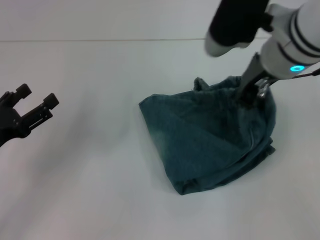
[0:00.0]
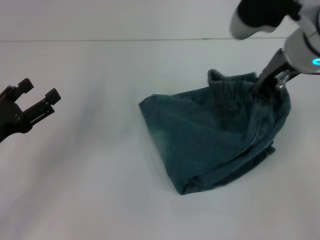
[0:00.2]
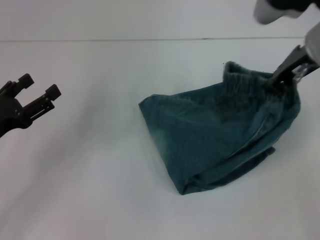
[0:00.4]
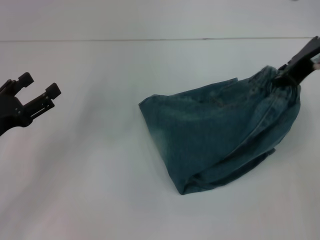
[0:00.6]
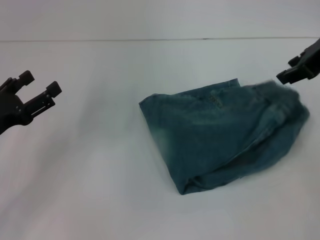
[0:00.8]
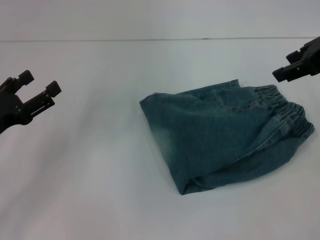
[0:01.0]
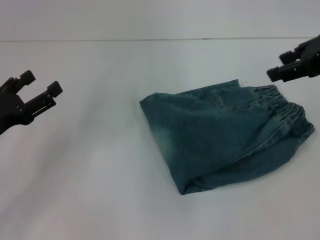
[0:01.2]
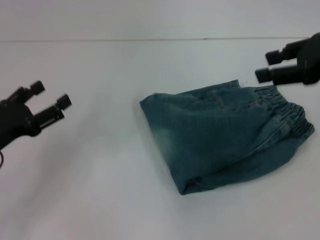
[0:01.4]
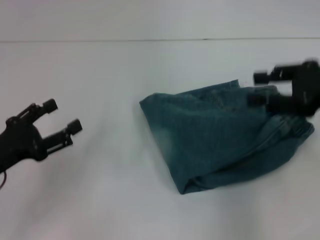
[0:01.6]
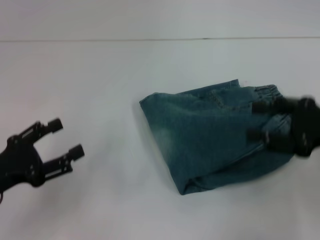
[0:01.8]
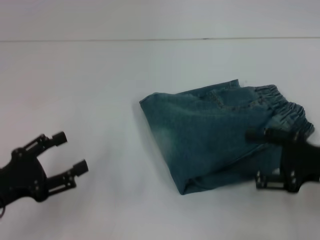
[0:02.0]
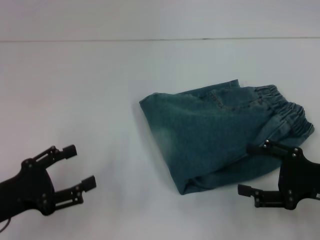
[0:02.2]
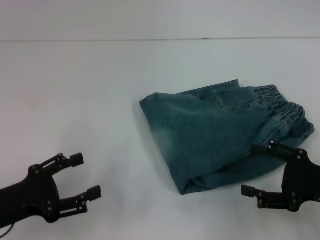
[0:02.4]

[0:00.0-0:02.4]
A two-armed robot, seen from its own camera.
0:00.0 to 0:01.2: The right gripper travels to the right by about 15 cm, and opens.
0:01.2 to 0:02.4: The right gripper travels downward and backward by some 25 cm, and opens its fingers. Meanwhile the left gripper moves backward, approximately 5 cm.

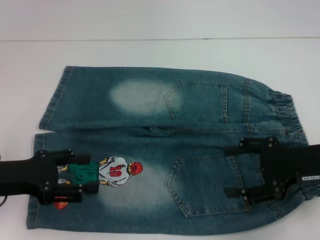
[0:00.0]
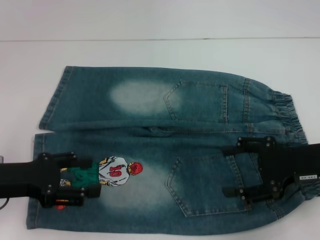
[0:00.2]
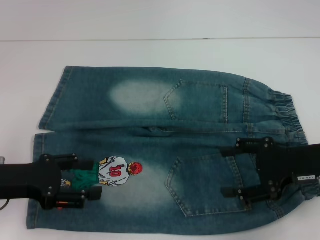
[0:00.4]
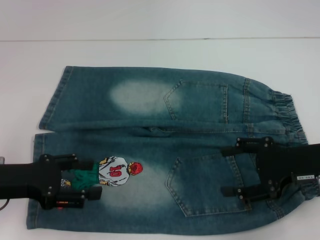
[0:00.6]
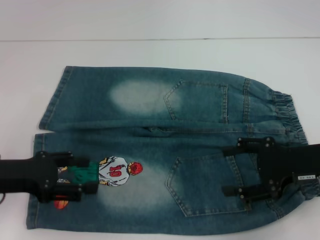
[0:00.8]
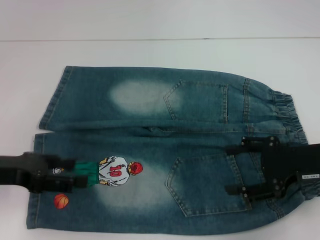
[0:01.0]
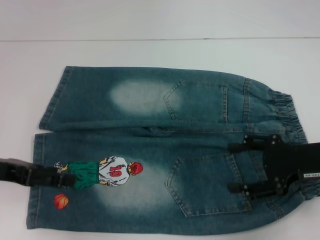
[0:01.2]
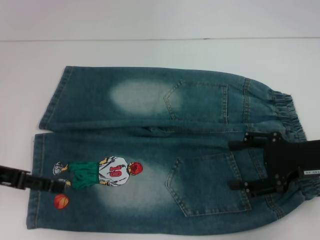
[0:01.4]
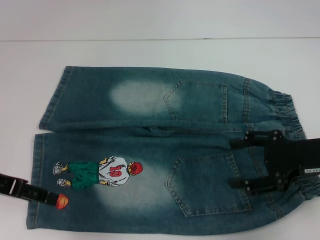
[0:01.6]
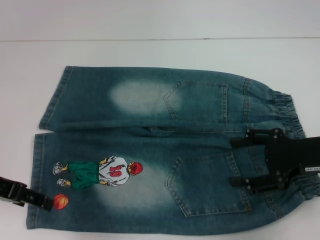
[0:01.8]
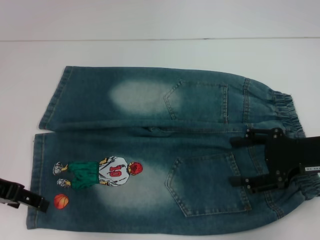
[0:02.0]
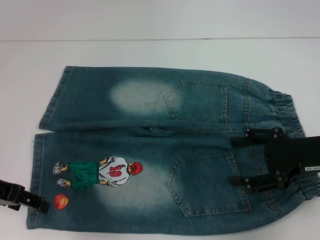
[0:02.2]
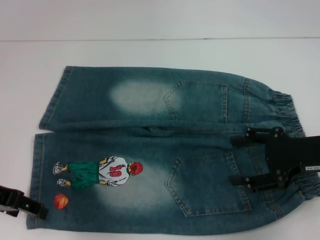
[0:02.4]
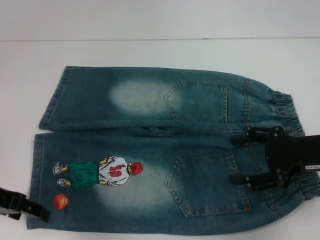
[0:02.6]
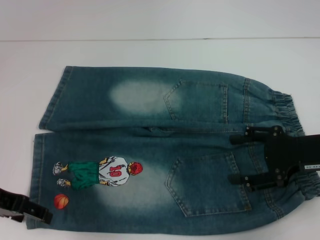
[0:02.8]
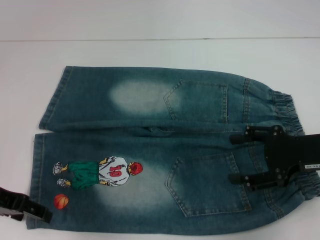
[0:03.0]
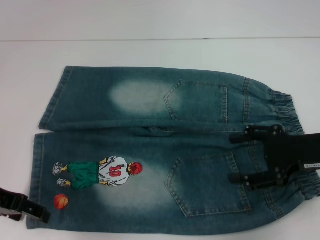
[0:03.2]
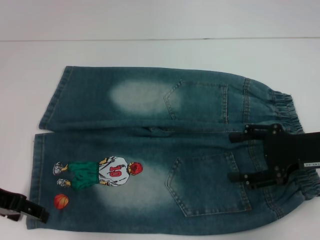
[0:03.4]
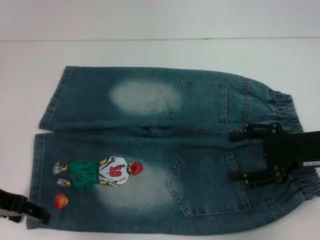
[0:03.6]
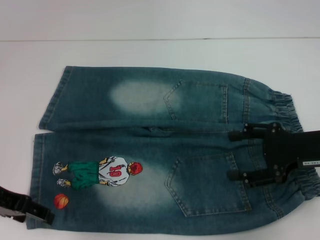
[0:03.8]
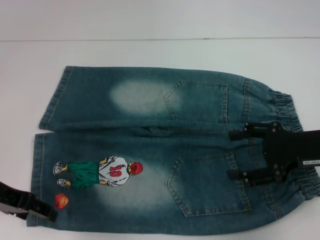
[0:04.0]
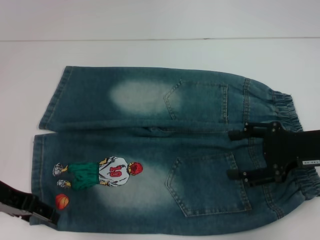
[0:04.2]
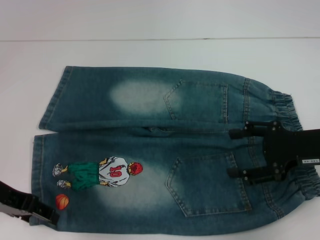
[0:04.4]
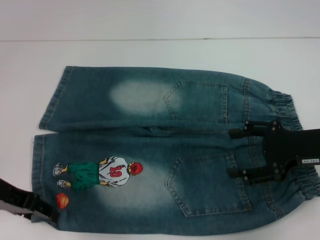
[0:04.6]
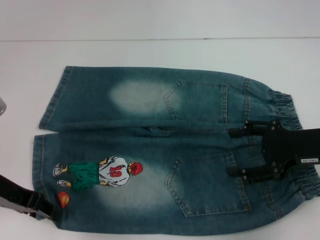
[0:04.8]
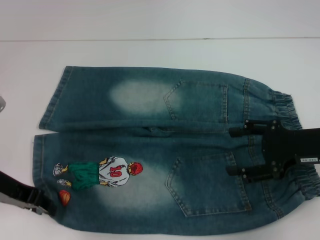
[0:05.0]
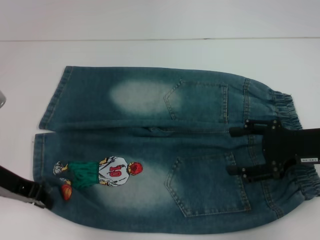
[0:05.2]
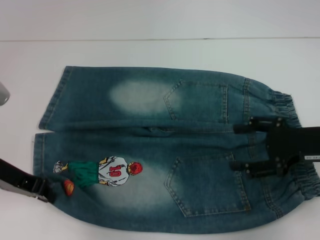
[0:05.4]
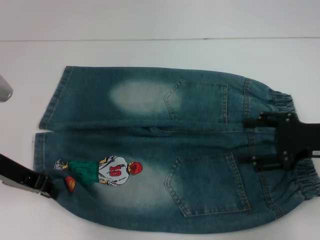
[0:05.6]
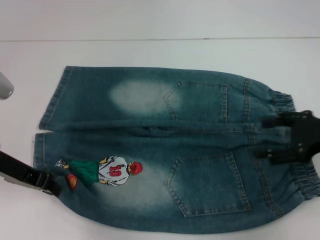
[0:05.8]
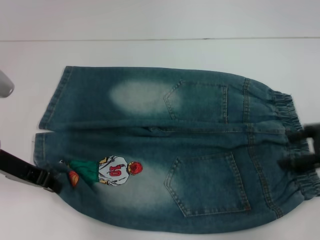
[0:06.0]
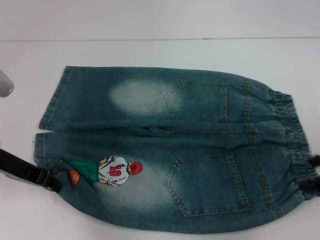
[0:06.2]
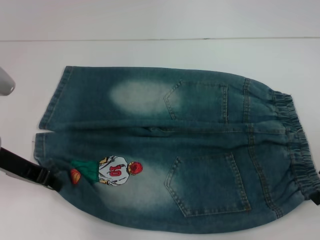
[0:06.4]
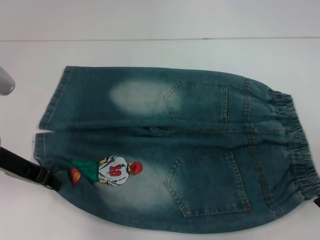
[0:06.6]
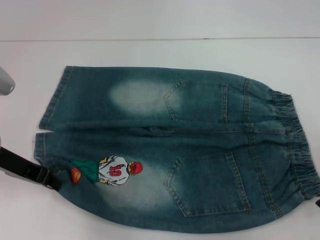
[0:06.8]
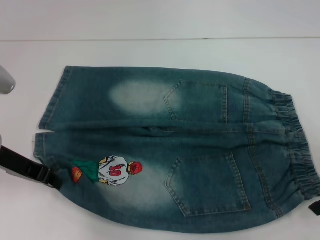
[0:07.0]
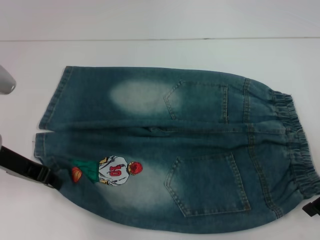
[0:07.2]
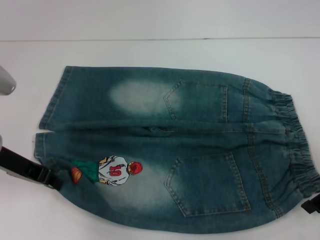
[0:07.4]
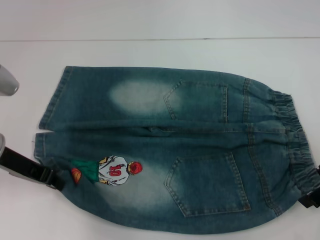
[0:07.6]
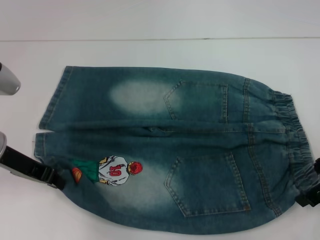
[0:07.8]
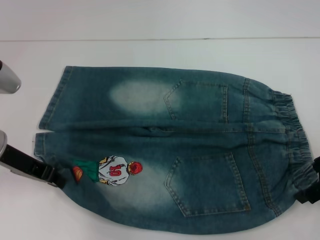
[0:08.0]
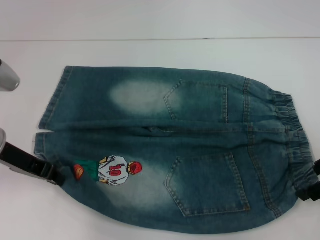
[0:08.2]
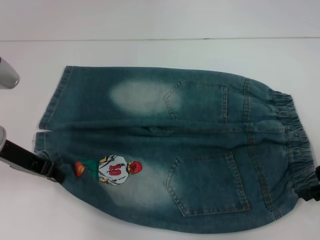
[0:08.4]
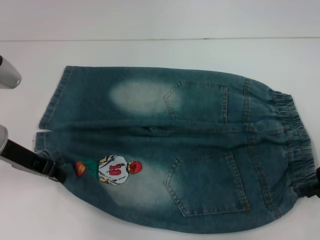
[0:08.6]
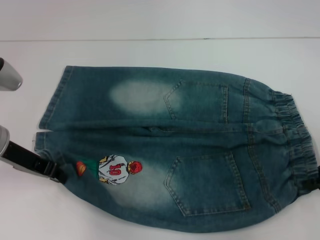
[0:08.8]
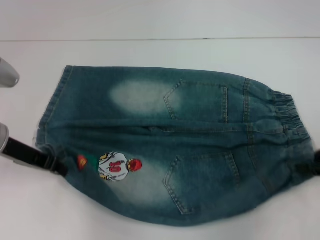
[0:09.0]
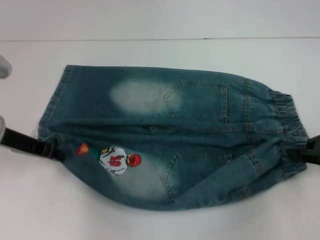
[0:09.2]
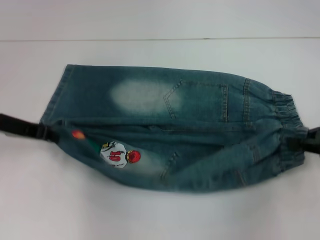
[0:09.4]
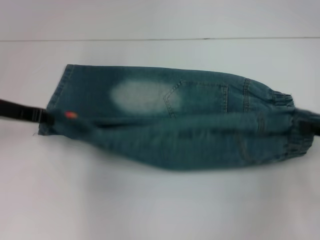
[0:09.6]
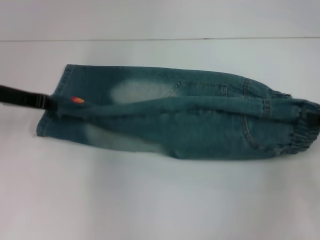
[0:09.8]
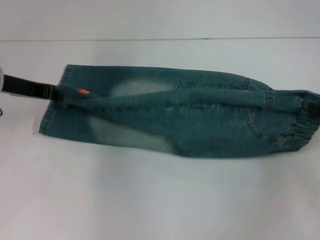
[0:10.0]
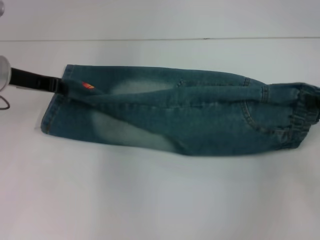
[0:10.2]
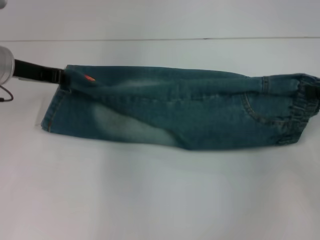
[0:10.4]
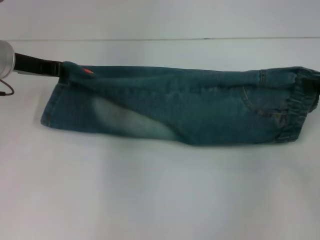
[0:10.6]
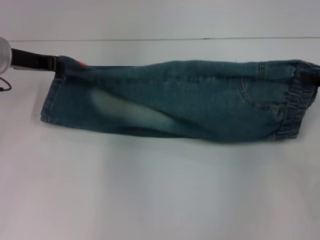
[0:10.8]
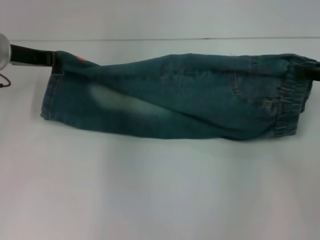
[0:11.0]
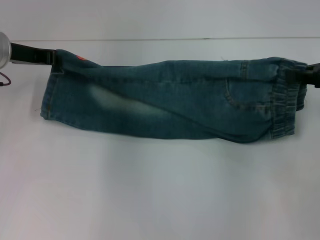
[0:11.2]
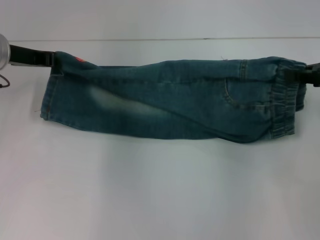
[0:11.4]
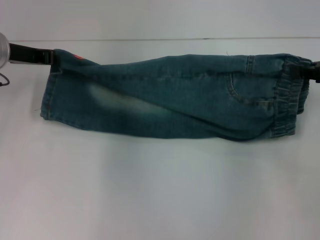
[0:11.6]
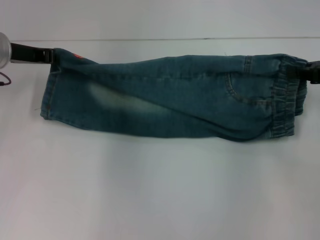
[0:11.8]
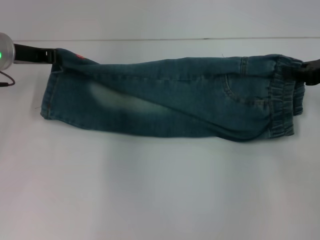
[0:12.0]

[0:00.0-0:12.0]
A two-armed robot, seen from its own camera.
Step, 0:00.0 to 0:05.0: Grab the lower left pant leg with your left hand.
Step, 0:05.2 to 0:08.6: Hold the lower right waistband with your right hand.
0:00.0 to 0:01.6: The left gripper moves upward, some 5 cm.
0:01.6 to 0:04.4: The grippers make only small movements.
0:04.4 to 0:06.0: The left gripper closes. The right gripper shifts by roughly 5 cm.
0:07.6 to 0:09.0: The right gripper closes its fingers.
0:09.0 to 0:10.4: The left gripper heads forward, covering some 5 cm. Meanwhile the right gripper changes place by roughly 5 cm.
0:10.4 to 0:12.0: There are only small adjustments of the grippers.

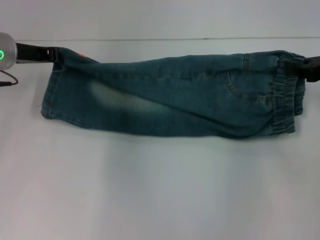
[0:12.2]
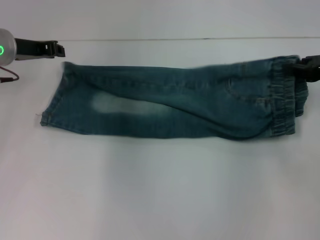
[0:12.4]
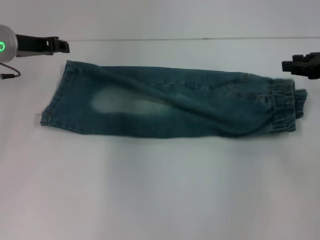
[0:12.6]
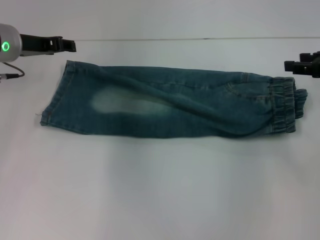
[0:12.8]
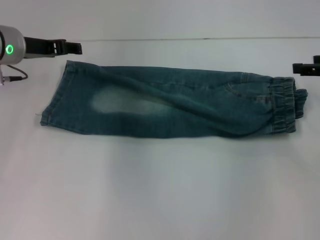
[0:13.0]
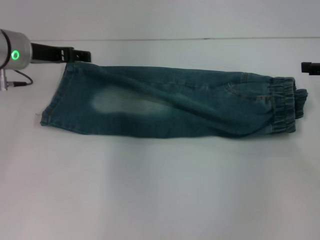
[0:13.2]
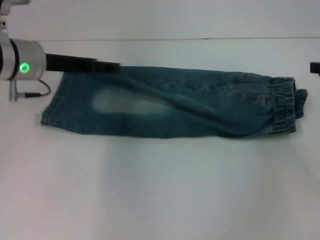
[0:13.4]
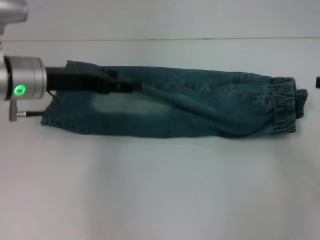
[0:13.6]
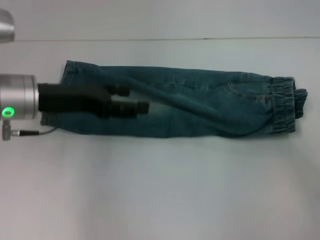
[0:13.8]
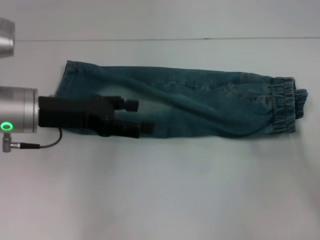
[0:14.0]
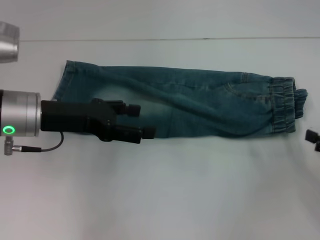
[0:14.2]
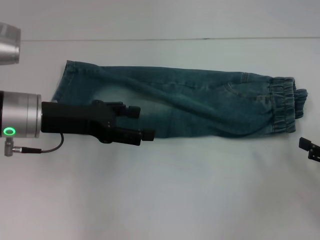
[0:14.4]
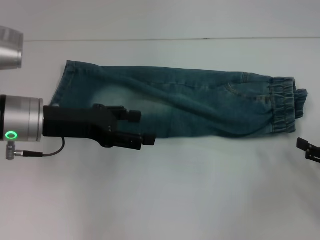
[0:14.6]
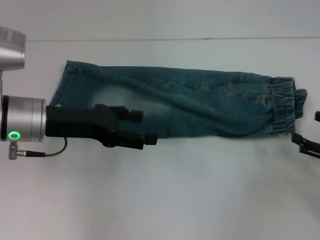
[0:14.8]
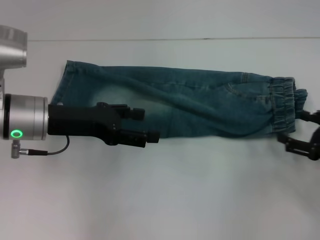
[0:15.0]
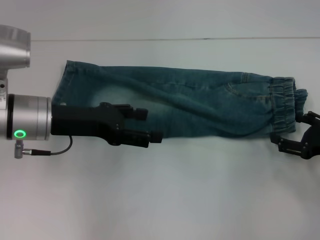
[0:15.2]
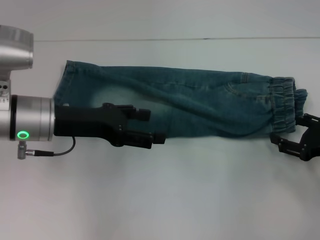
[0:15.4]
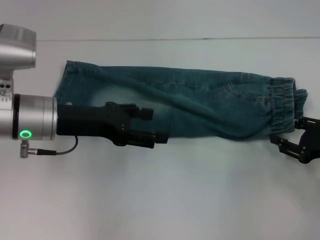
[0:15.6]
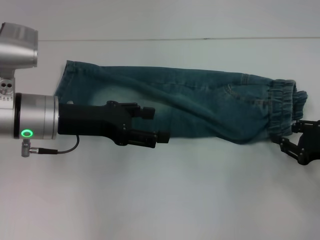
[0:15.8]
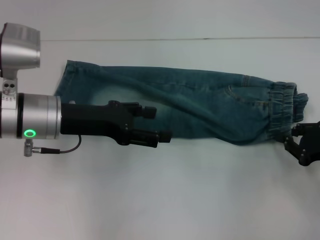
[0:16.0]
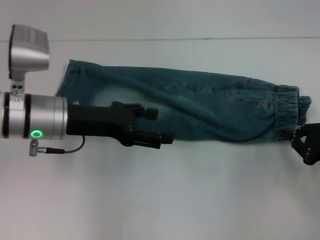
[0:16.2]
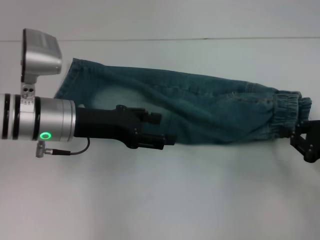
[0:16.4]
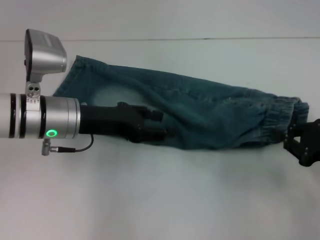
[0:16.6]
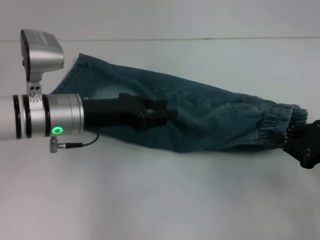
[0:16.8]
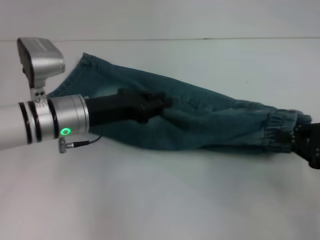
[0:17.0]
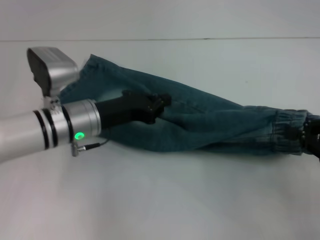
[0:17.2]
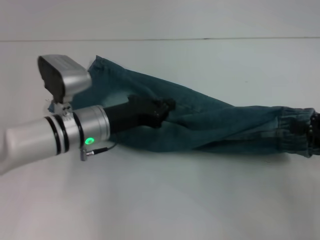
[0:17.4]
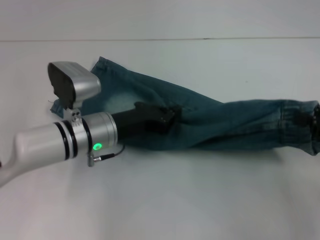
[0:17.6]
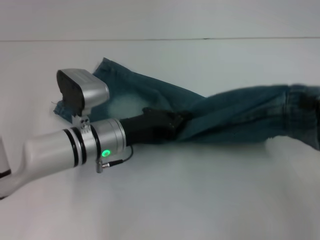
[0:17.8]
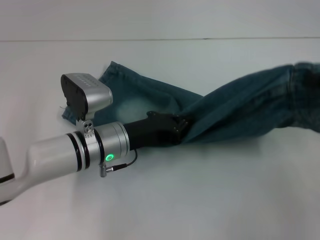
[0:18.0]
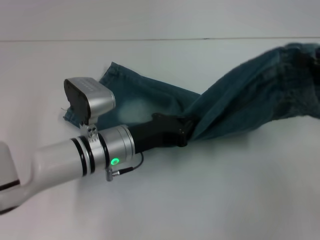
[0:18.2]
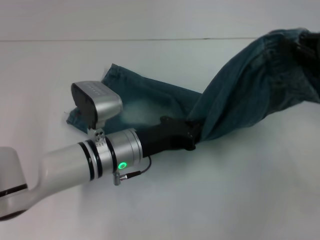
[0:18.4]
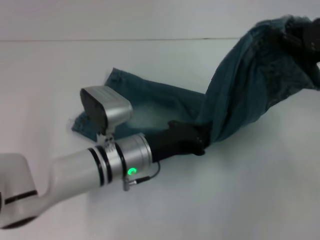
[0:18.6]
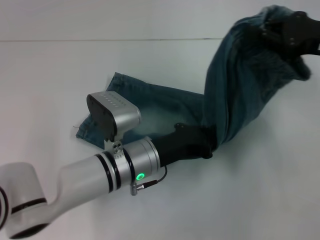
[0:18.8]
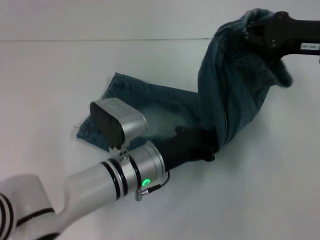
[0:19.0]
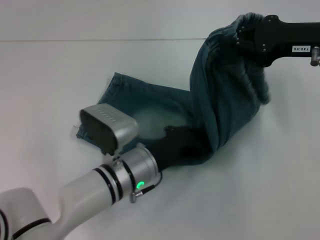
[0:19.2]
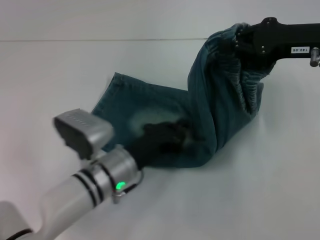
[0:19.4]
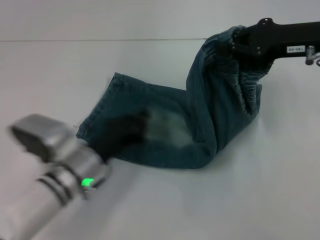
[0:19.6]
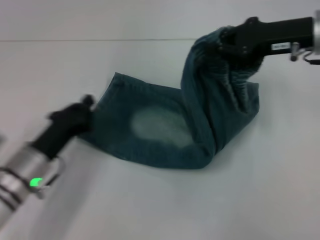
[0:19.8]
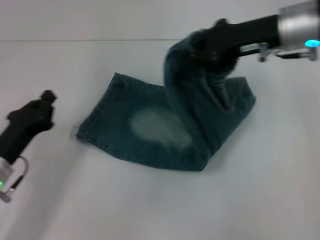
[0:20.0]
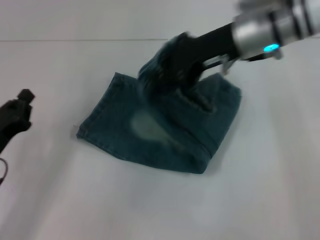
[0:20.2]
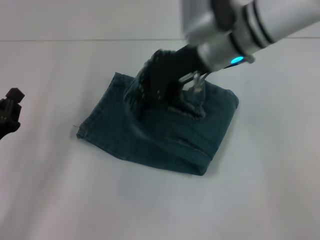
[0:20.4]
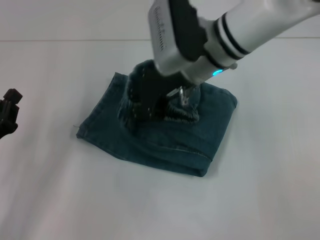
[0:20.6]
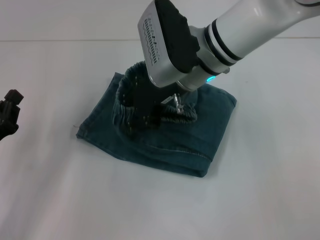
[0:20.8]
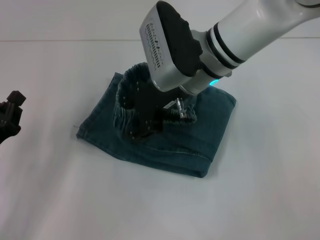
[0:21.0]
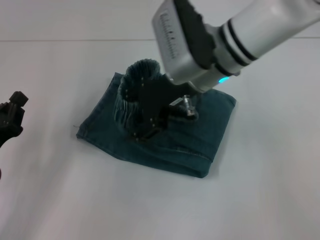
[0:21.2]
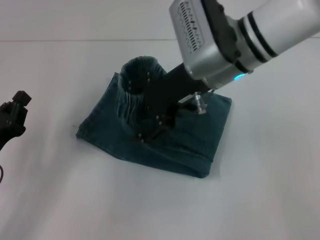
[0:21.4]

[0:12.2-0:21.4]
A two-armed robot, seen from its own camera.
Step, 0:12.8 to 0:16.2: Grab the waistband with your right hand.
Step, 0:16.4 to 0:19.0: Press the middle of the pants with your left hand.
0:12.2 to 0:13.8: The left gripper goes approximately 10 cm backward, and opens its fingers. Meanwhile the right gripper heads backward and to the right, covering about 10 cm, and opens up.
0:13.8 to 0:15.2: The right gripper shifts roughly 10 cm downward and to the left.
0:15.2 to 0:16.8: The left gripper closes up; the right gripper closes.
0:16.8 to 0:18.4: The right gripper is displaced upward and forward by approximately 10 cm. The left gripper goes roughly 10 cm to the right and downward, and closes up.
0:18.4 to 0:19.8: The right gripper is displaced to the left and forward by approximately 10 cm. Meanwhile the left gripper shifts approximately 10 cm to the left.
0:19.8 to 0:21.4: The left gripper goes roughly 10 cm to the left. Meanwhile the right gripper heads to the left, covering about 15 cm, and opens.
